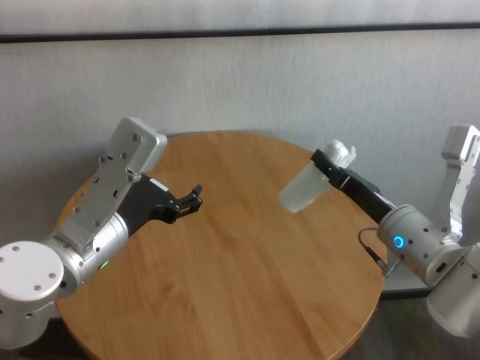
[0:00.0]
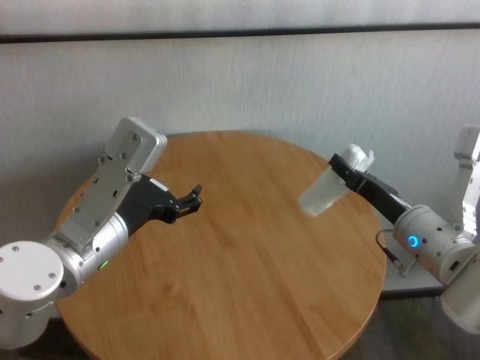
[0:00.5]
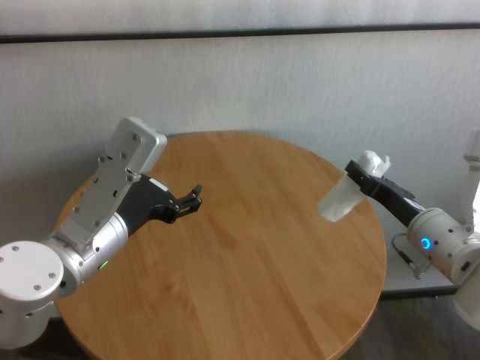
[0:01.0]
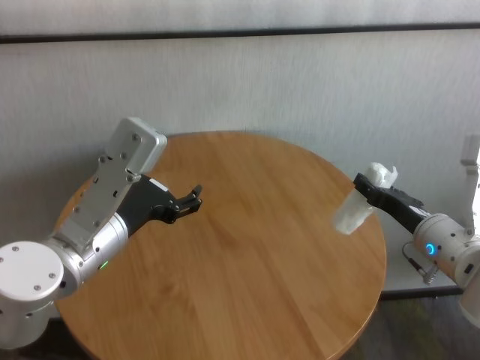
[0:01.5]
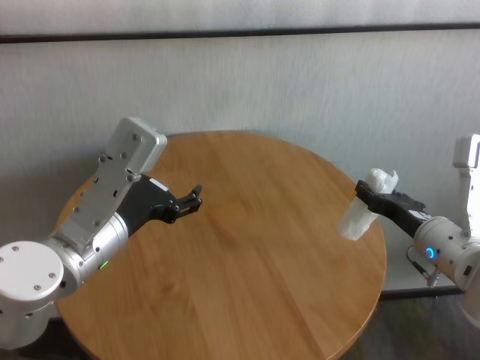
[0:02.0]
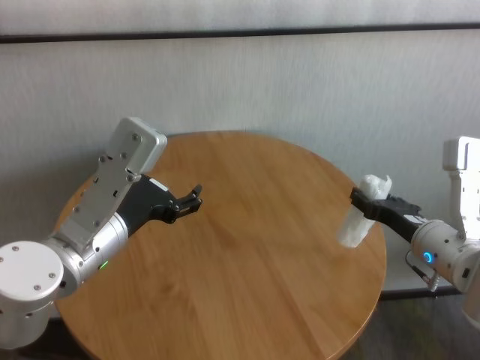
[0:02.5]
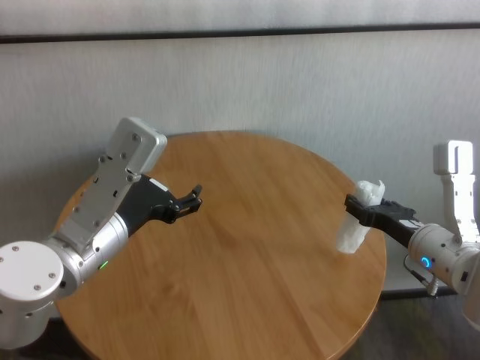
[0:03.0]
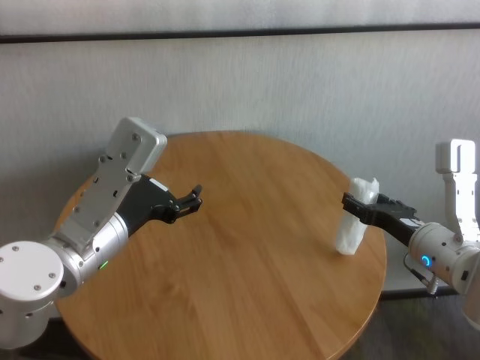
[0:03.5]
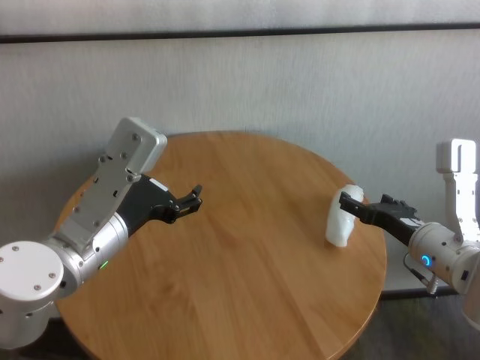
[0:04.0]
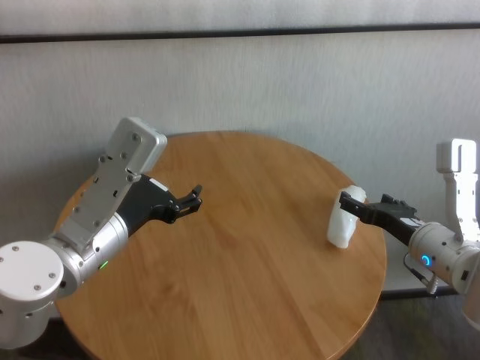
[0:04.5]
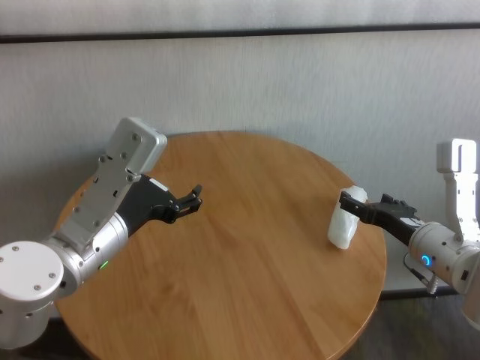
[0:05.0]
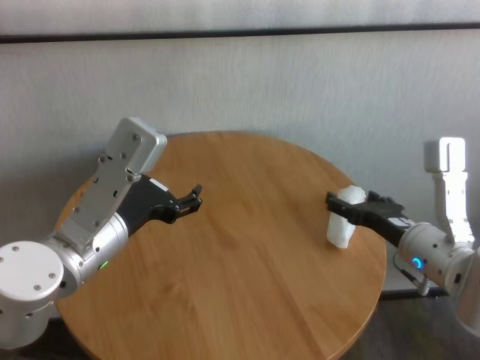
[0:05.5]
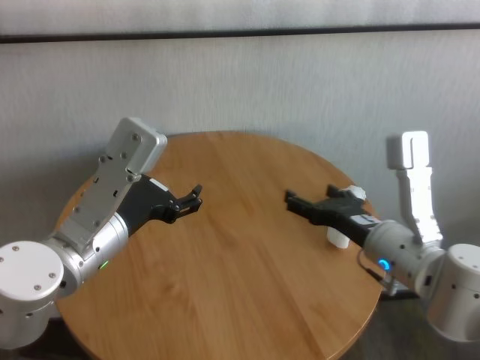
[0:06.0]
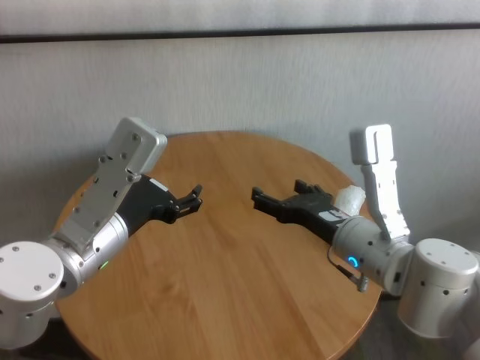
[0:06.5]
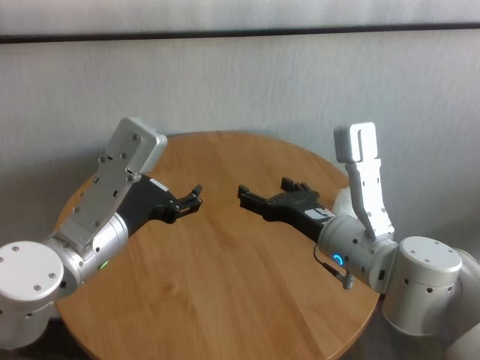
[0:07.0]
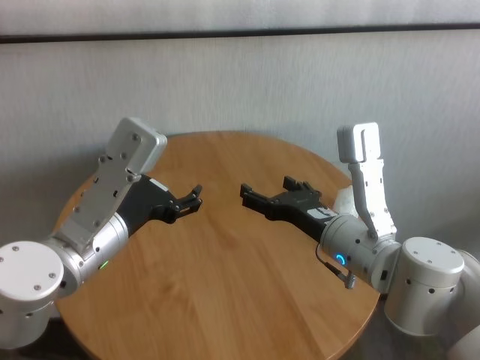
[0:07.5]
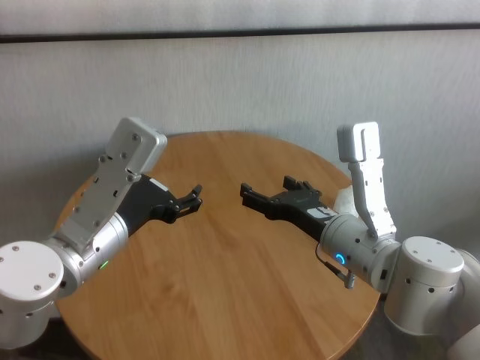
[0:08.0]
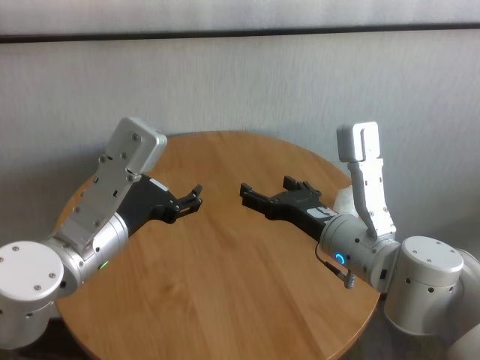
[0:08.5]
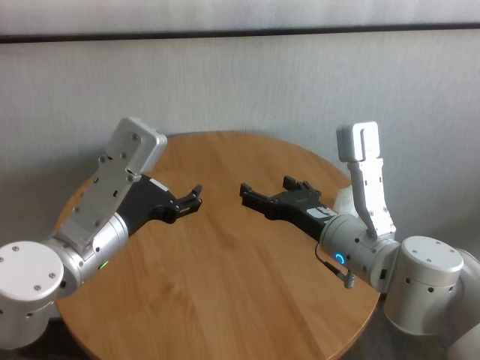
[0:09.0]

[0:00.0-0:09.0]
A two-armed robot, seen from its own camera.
Task of the whole recording: One hand took the sandbag from the other hand and placed it on the table.
Step, 0:00.0 to 0:03.5: Place the paper ball on the table with right gripper.

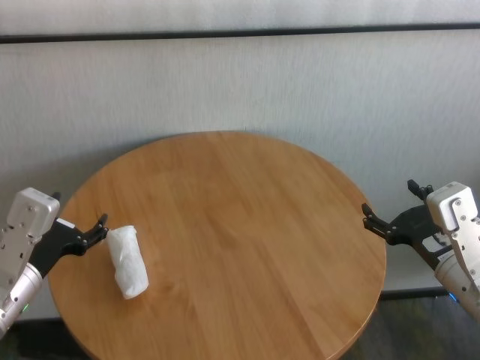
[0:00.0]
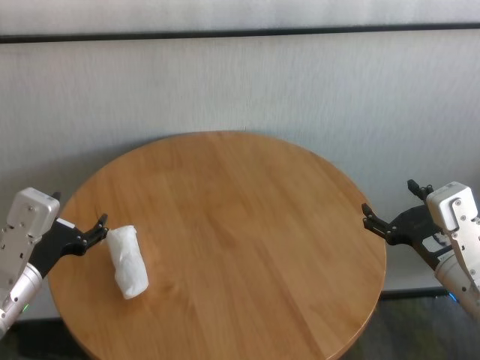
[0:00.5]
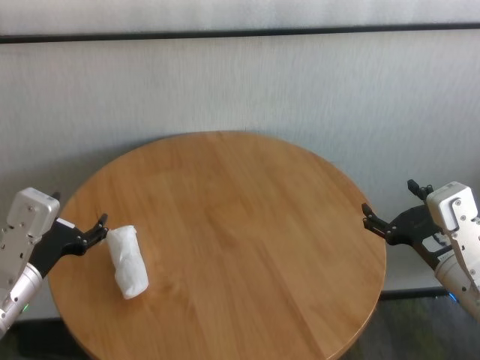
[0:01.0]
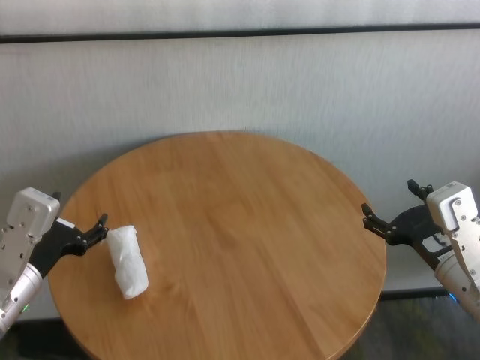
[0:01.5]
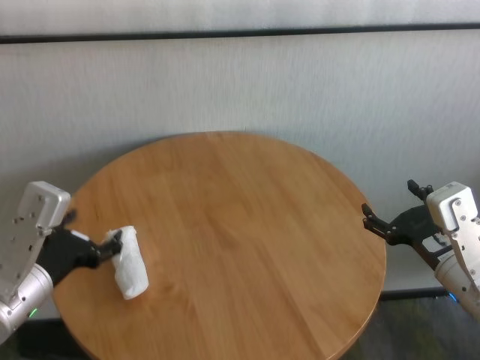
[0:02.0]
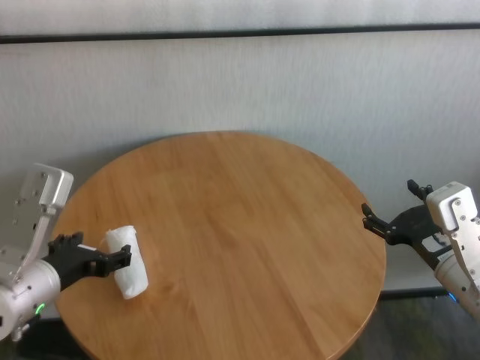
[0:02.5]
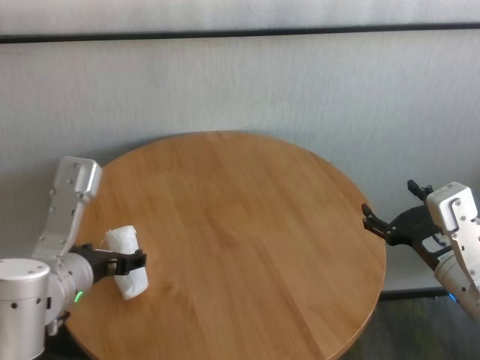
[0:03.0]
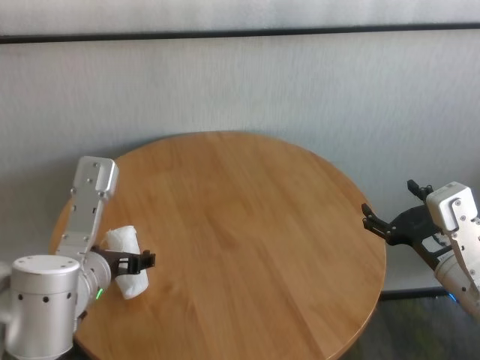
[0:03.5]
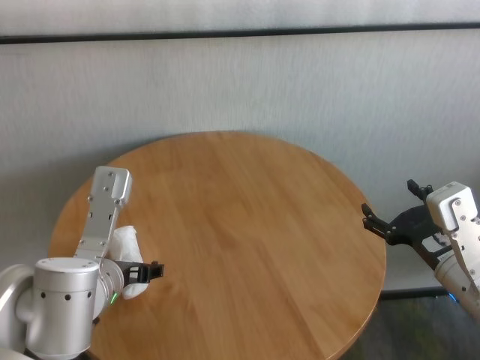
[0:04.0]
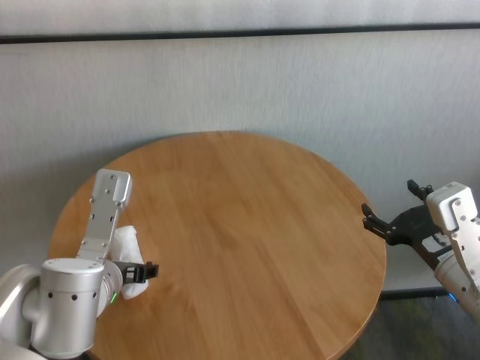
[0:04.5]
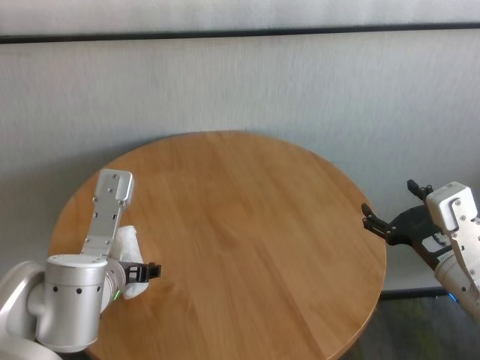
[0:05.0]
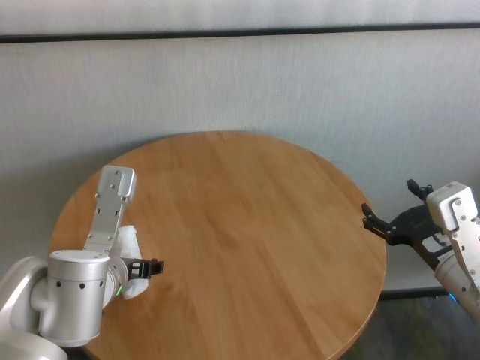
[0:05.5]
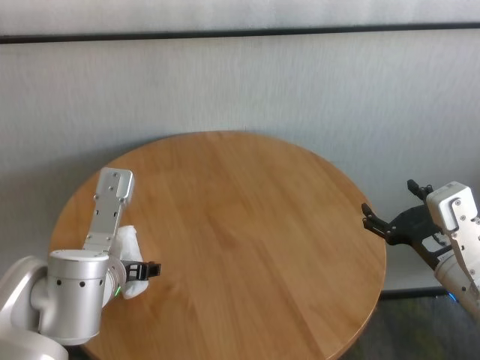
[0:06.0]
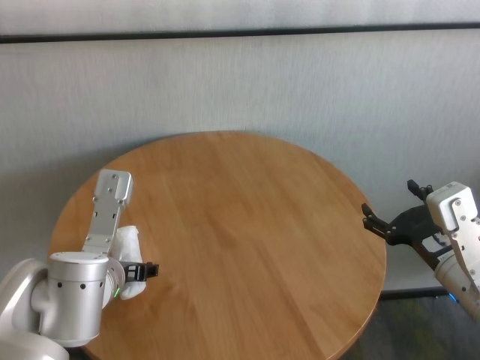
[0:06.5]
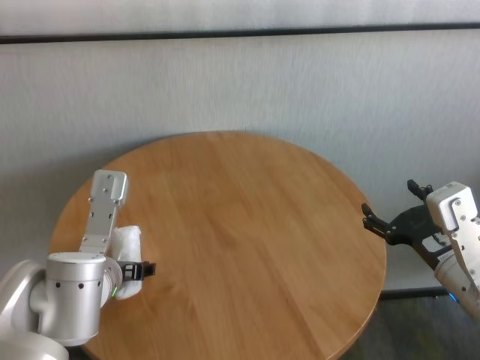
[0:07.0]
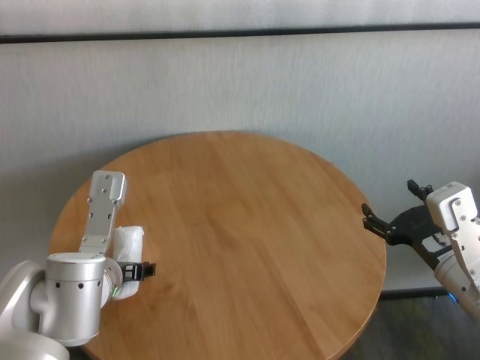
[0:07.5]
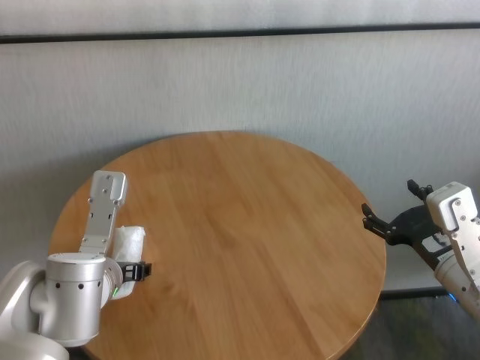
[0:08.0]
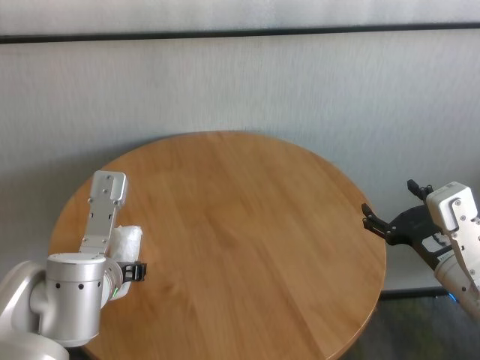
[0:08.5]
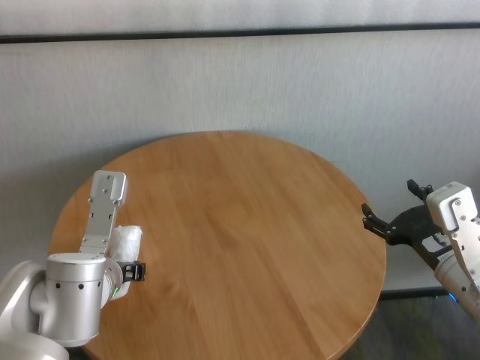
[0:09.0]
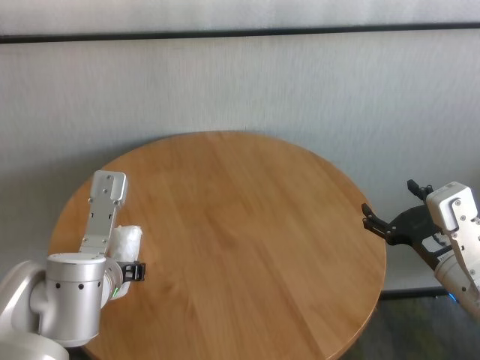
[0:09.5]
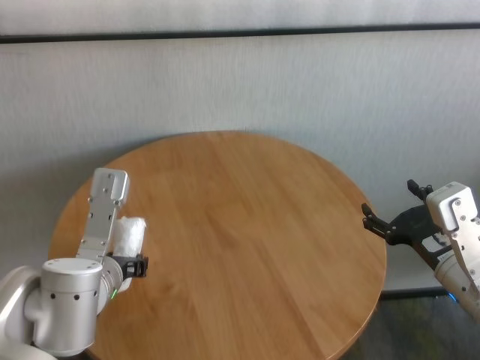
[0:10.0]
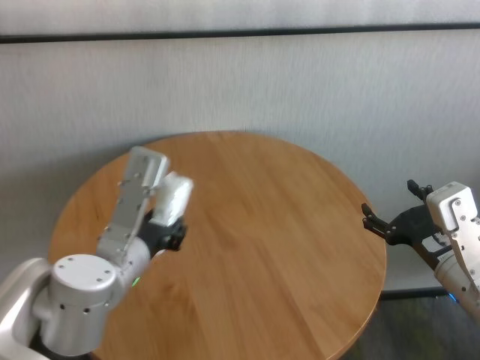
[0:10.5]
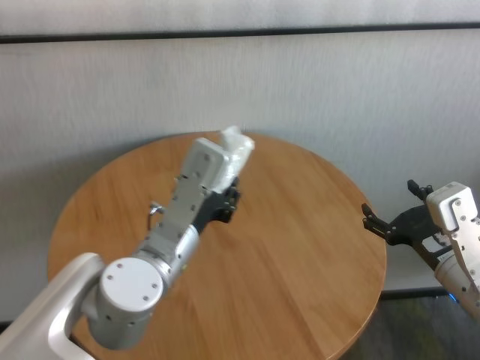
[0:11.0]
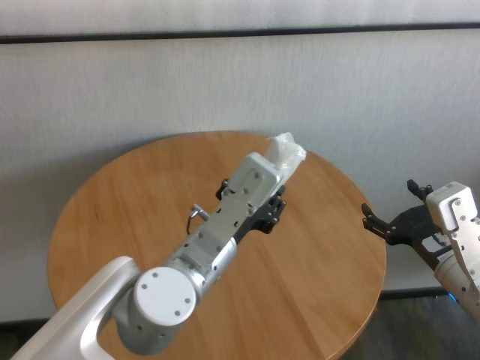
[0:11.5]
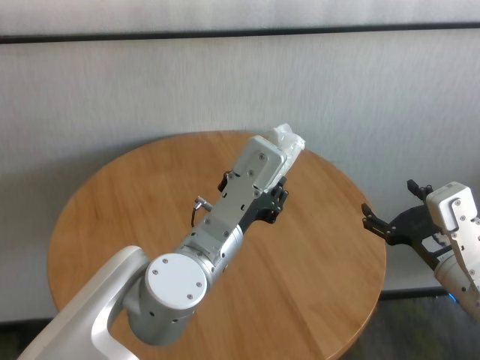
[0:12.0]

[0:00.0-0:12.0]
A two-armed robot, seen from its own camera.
Task of the whole recording: One hand took the sandbag from the other hand and placed it on the table.
Step, 0:00.0 to 0:09.5: Grasp the paper ball with left gripper.

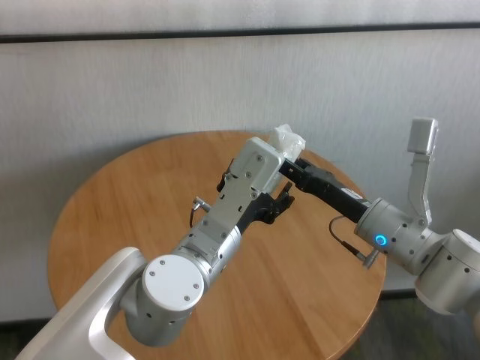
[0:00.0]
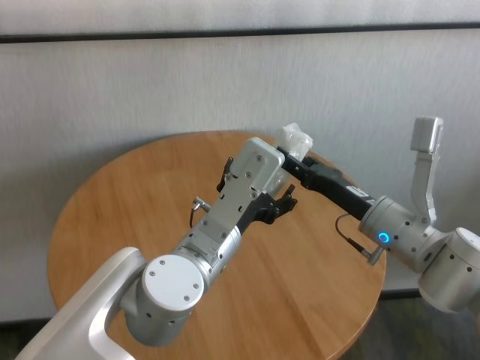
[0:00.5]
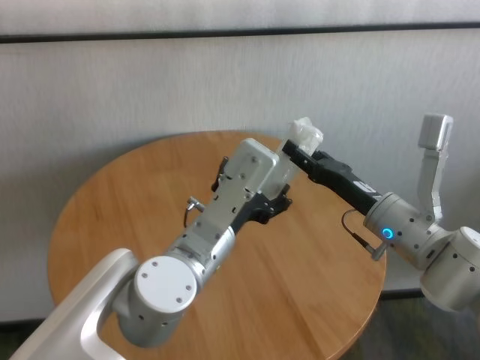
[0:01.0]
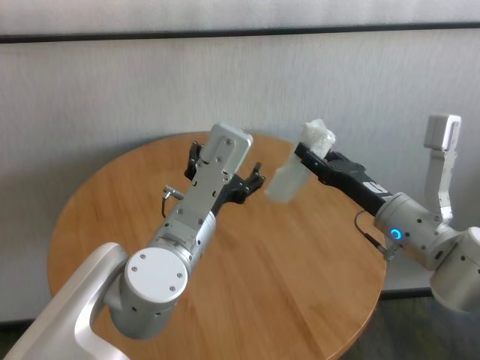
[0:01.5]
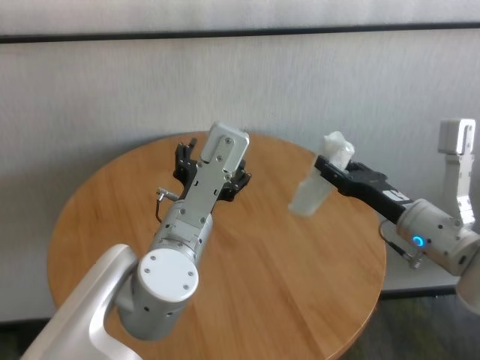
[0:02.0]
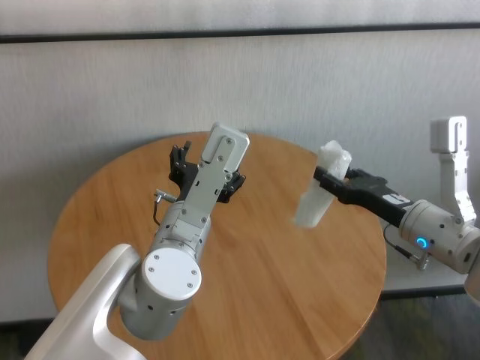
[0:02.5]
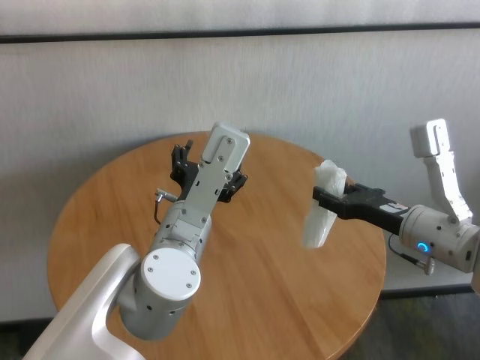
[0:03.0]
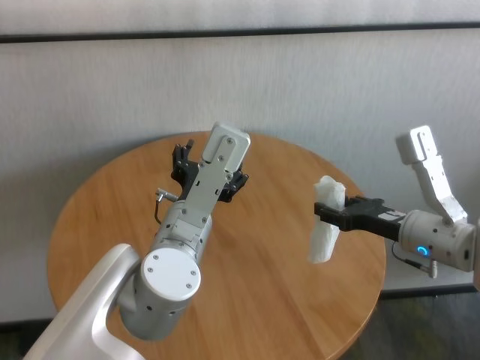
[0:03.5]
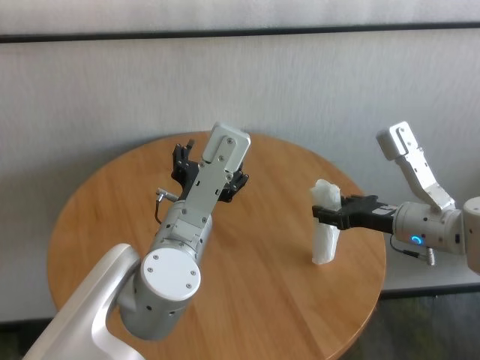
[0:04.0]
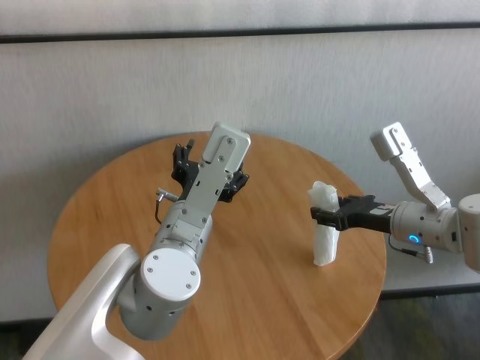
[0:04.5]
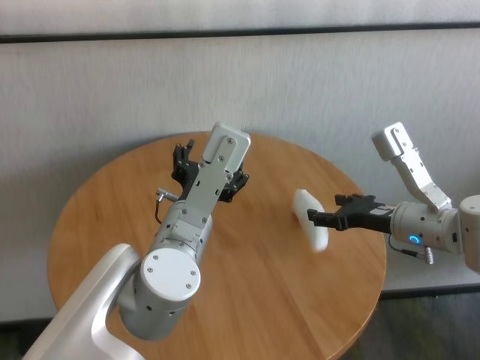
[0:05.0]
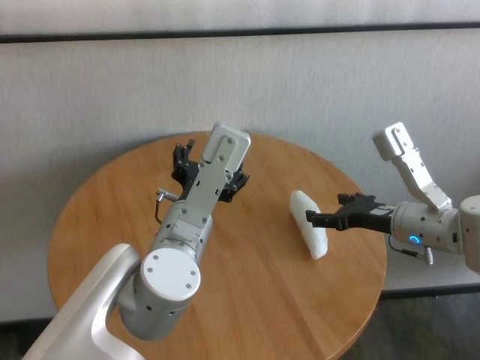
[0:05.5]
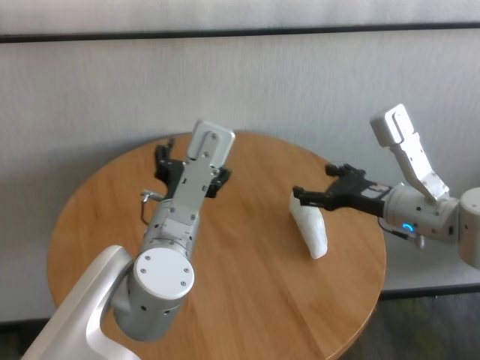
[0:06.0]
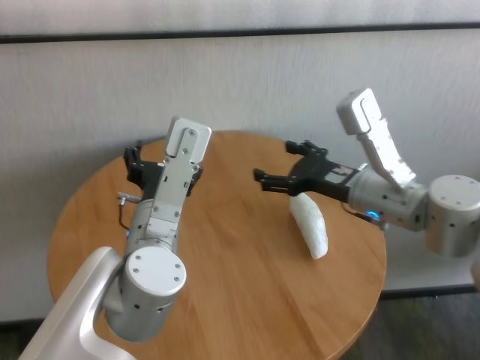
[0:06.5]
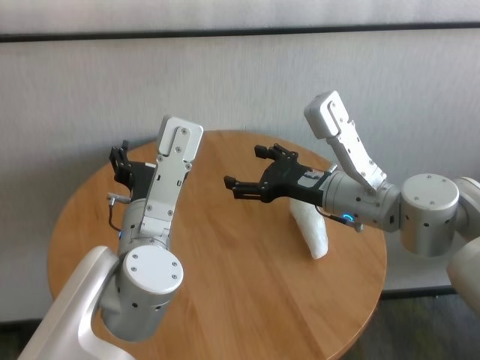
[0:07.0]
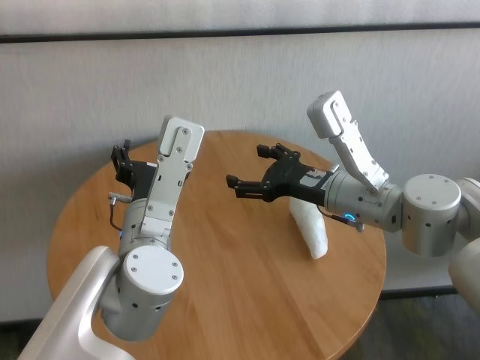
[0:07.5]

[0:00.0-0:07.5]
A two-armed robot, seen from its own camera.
Task of the whole recording: One hand took the sandbag from the other hand and placed it on the table.
Step, 0:00.5 to 0:05.0: Place the paper ball on the table with right gripper.
